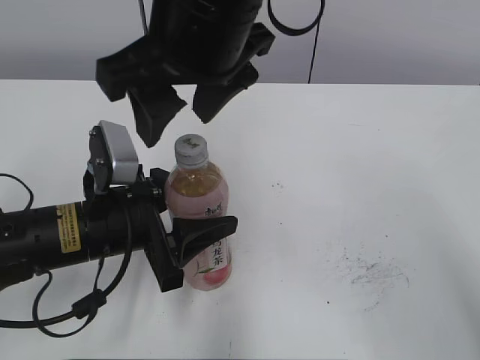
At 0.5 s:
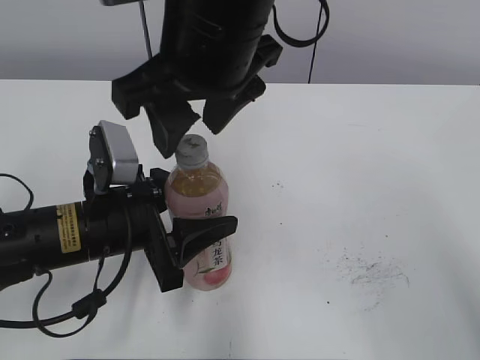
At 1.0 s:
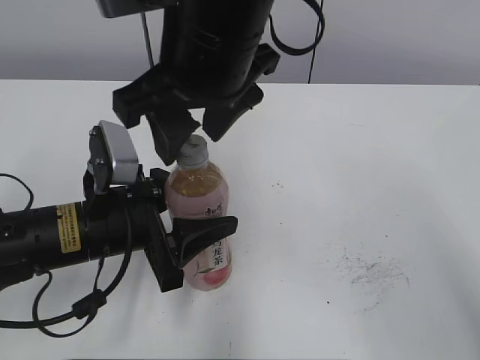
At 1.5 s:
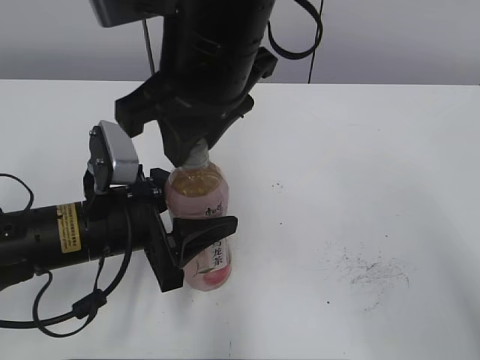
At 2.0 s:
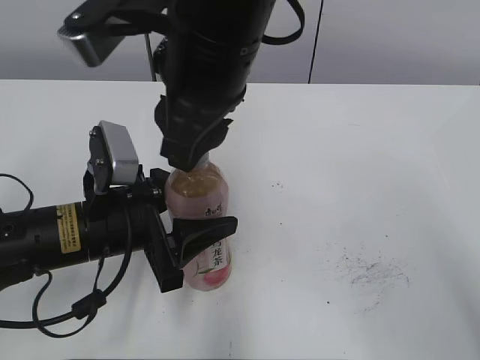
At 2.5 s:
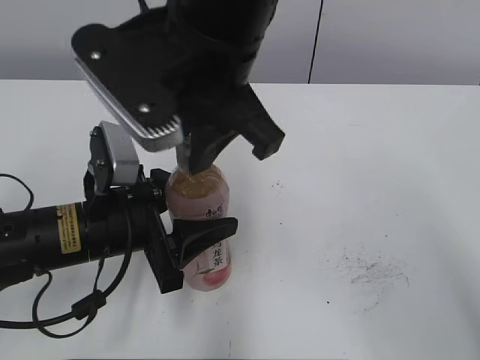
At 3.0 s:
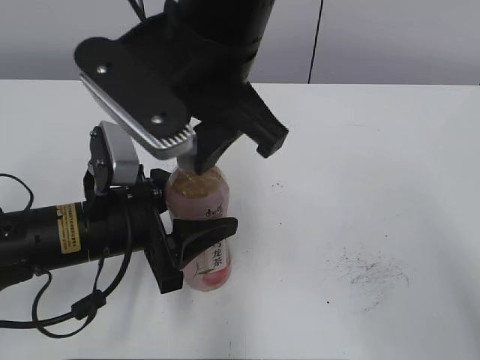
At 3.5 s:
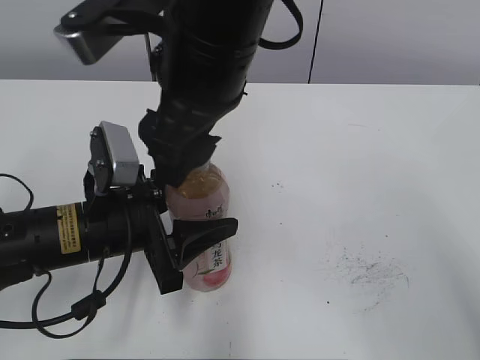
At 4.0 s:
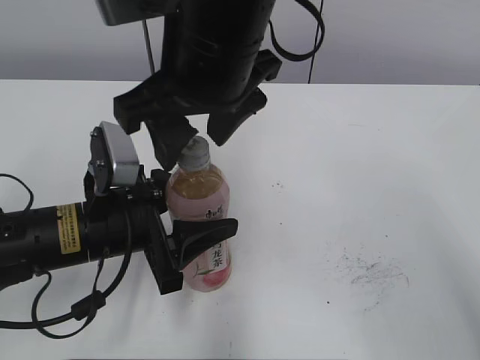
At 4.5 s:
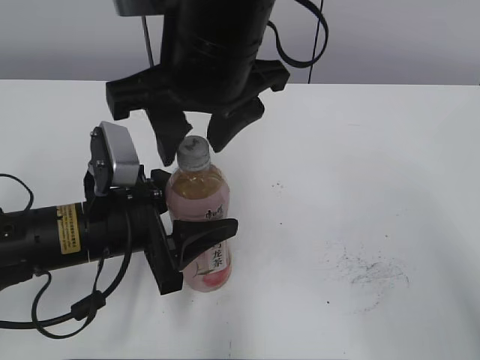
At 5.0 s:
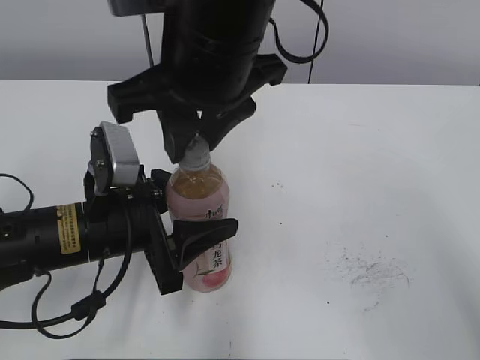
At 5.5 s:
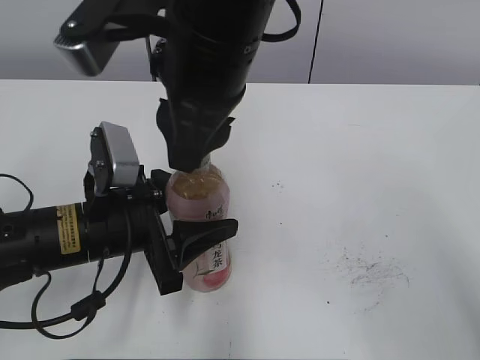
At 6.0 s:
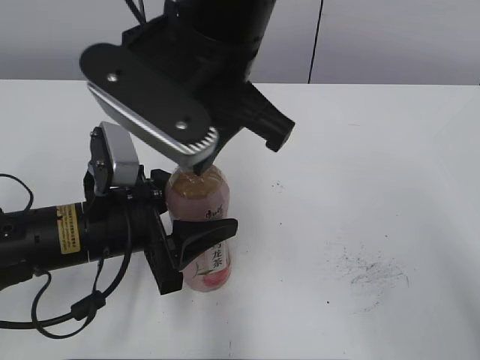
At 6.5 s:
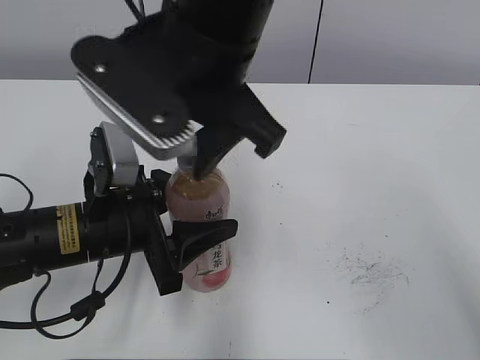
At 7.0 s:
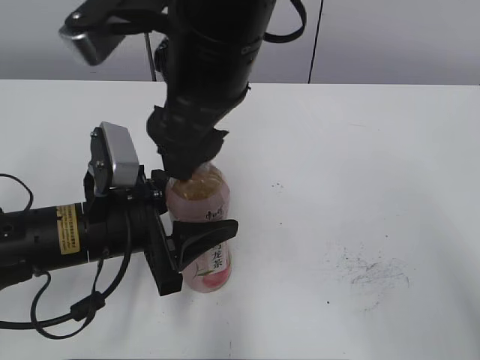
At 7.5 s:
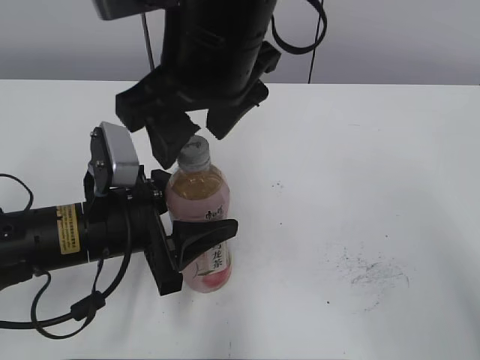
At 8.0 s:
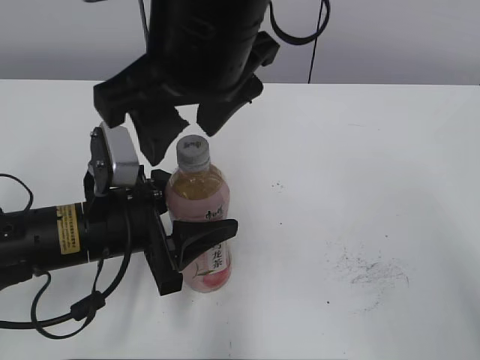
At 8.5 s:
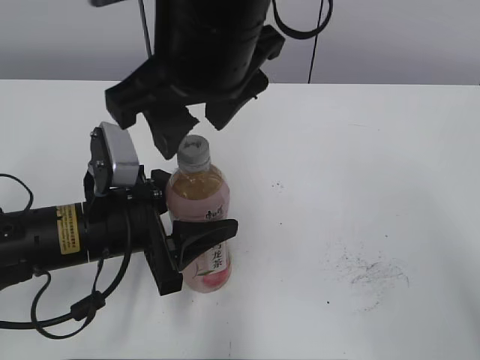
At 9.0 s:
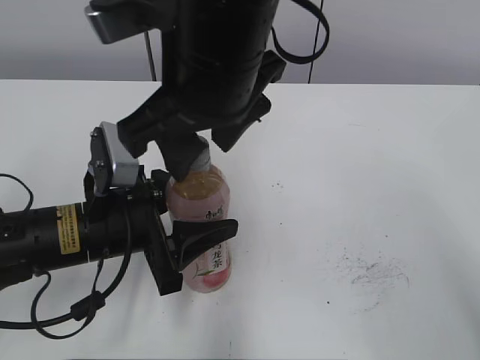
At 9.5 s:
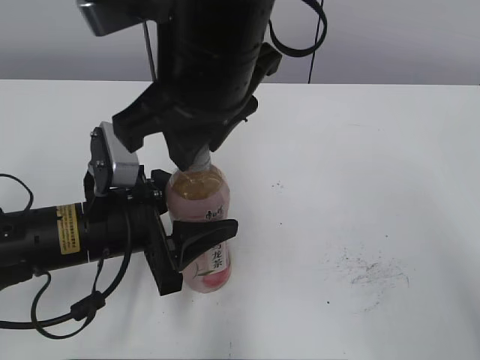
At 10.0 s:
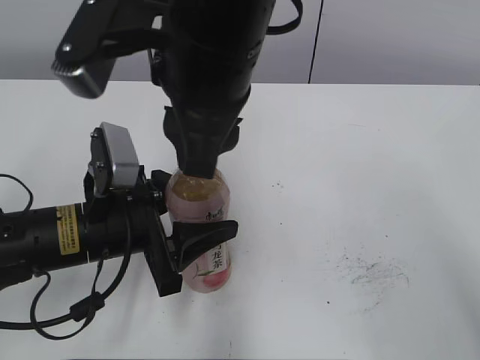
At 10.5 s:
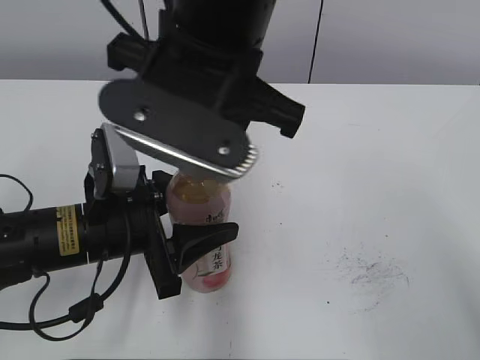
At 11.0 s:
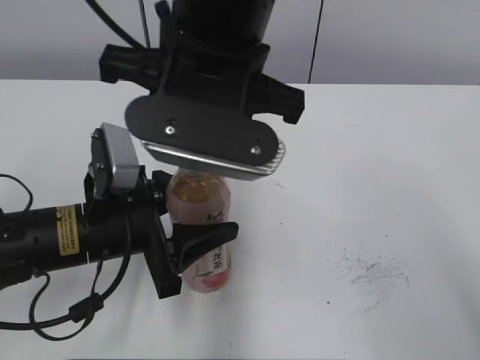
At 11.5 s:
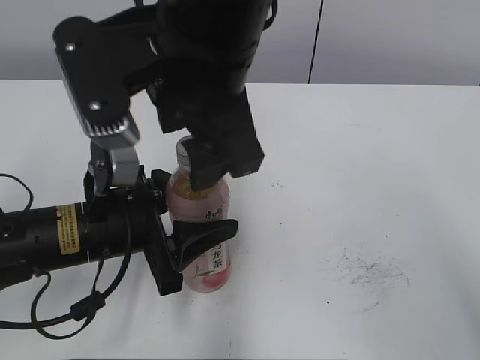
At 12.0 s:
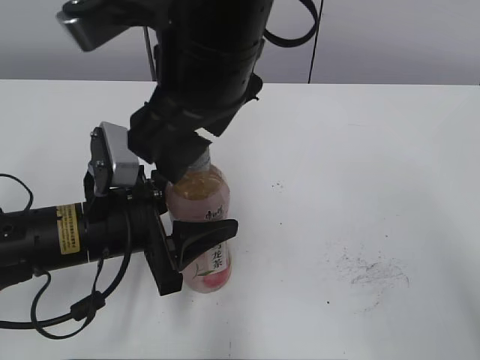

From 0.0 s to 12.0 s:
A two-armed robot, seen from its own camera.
From 0.0 s to 2.0 s: The right gripper closes.
From 2.0 s to 4.0 s: The right gripper opens up.
From 4.0 s to 6.0 s: The right gripper closes its fingers.
From 6.0 s to 8.0 s: The right gripper opens up.
From 8.0 s to 10.0 s: The right gripper closes its fingers.
From 10.0 s to 12.0 s: The right gripper opens.

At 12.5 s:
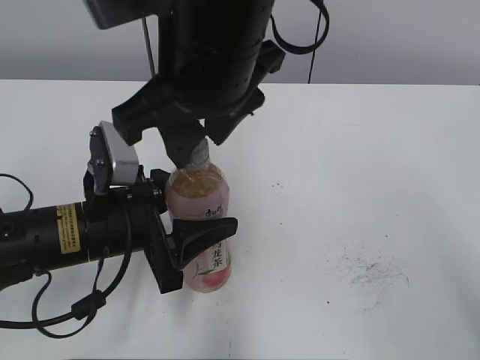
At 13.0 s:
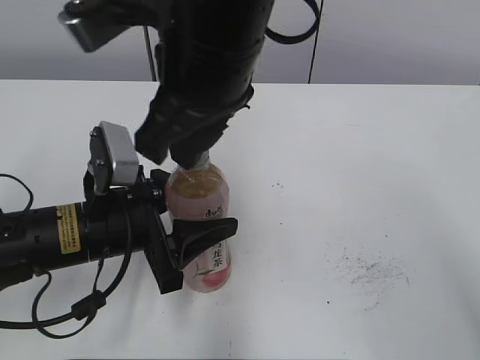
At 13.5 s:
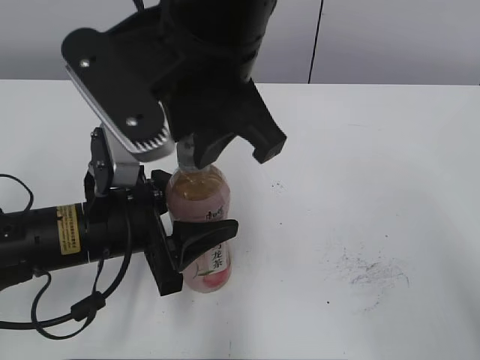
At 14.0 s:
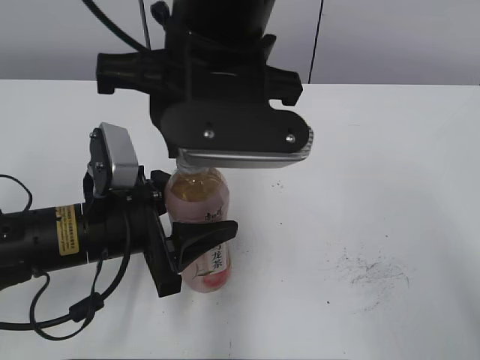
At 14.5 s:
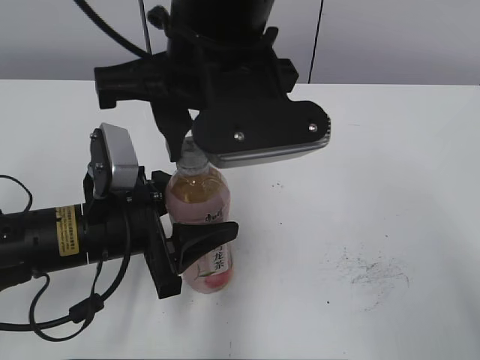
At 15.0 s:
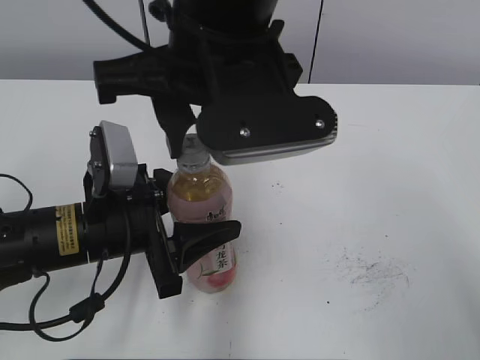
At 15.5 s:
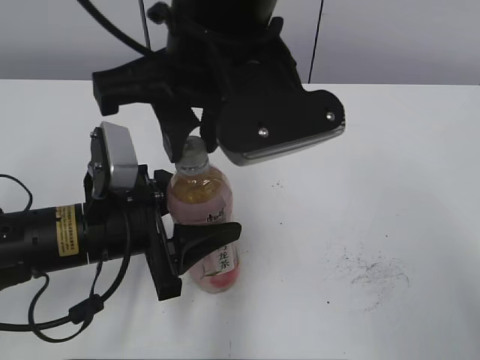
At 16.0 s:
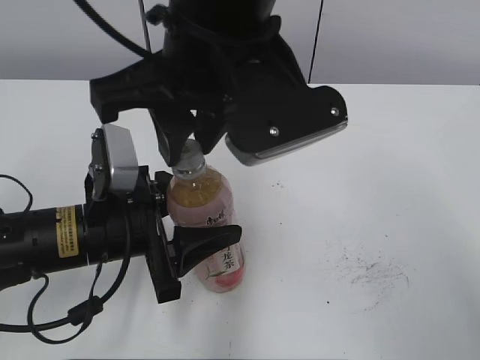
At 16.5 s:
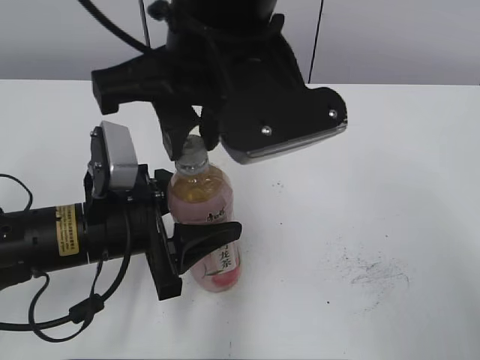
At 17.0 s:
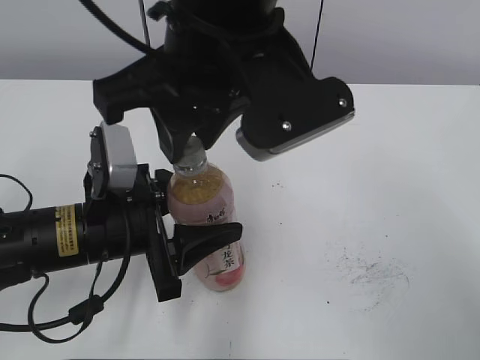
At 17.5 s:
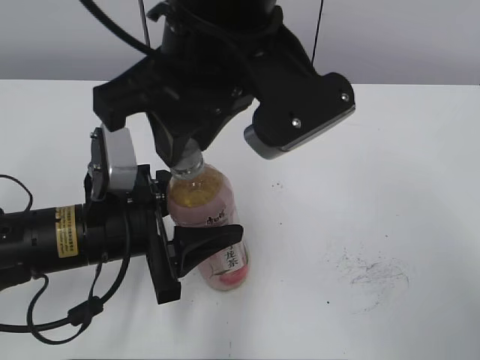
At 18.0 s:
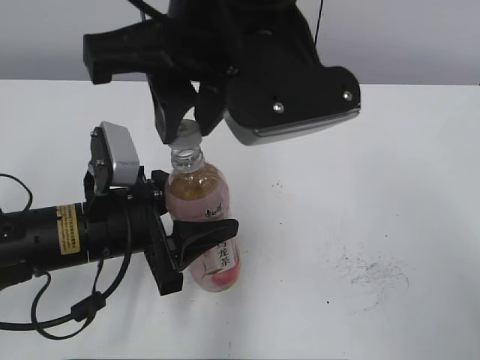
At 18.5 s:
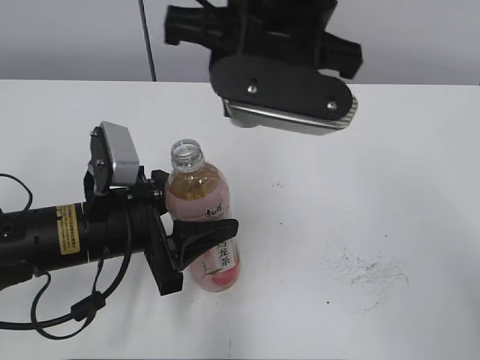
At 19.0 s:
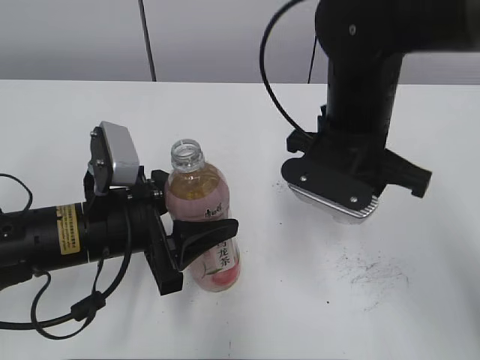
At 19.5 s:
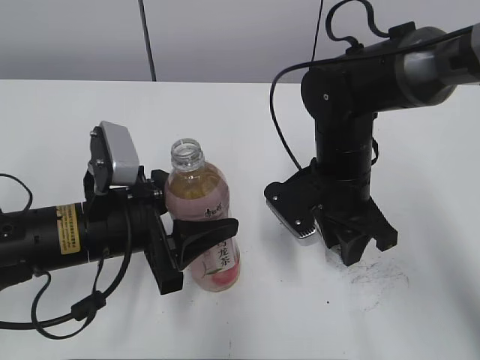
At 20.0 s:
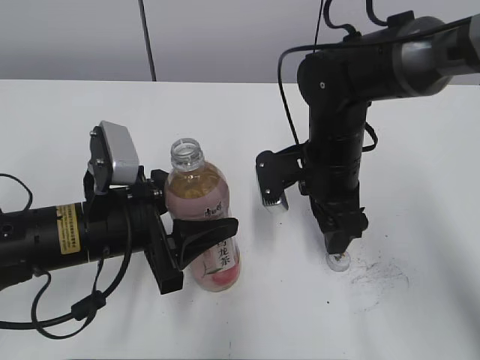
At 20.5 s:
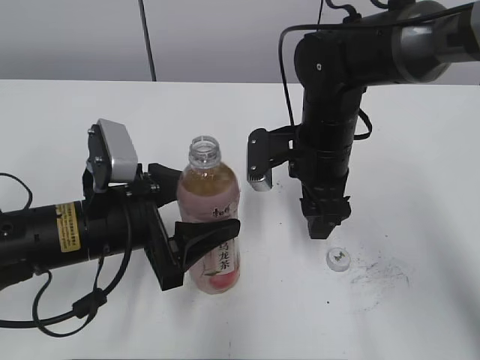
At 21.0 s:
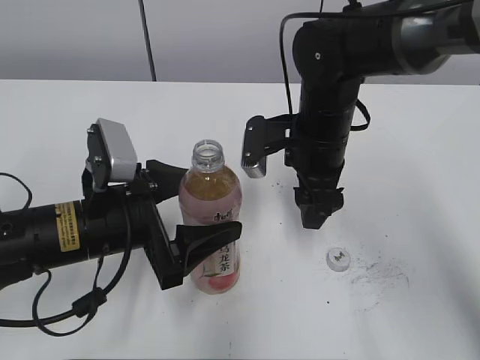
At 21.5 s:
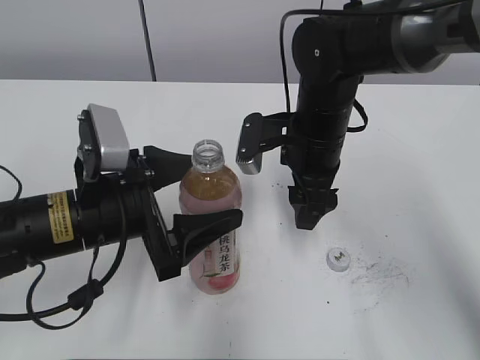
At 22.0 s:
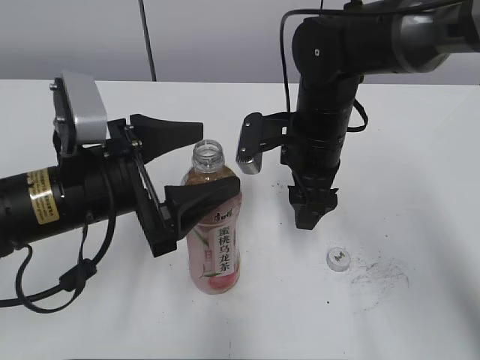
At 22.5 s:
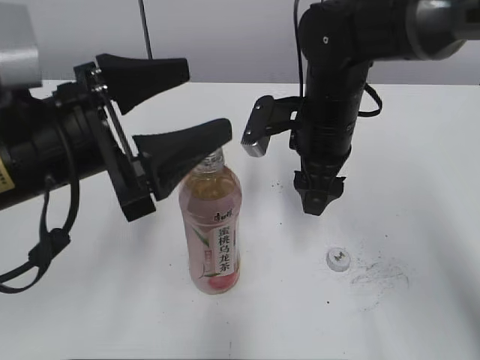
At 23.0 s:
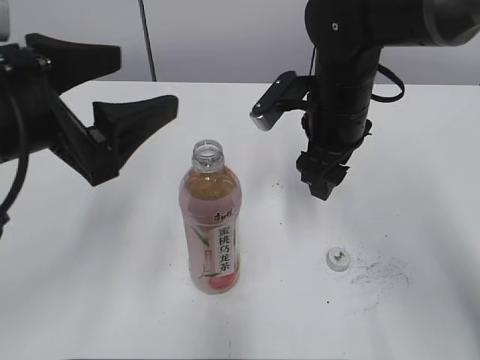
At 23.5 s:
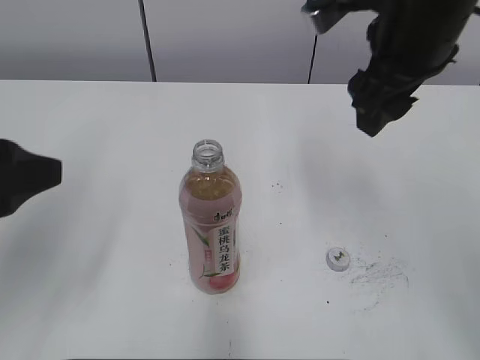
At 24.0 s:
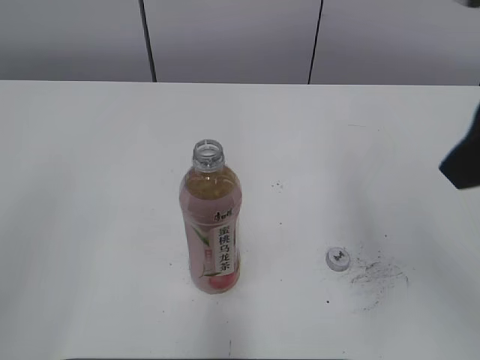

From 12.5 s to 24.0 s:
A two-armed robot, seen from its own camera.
Step, from 12.5 s to 17.5 s: Secure the Peach Oolong Tea with the left hand.
Step, from 18.0 s to 19.5 s: Place the bottle cap on the right.
From 12.5 s to 14.5 s: The right gripper closes.
From 14.5 s to 16.5 s: The grippers make only small movements.
From 18.5 s to 20.0 s: The right gripper moves downward and to the right, about 20 cm, and opens up.
From 20.0 s to 22.0 s: The left gripper opens.
From 22.0 s to 24.0 s: The right gripper shifts about 25 cm upward, backward and to the right. The left gripper goes roughly 25 cm backward, upward and to the left.

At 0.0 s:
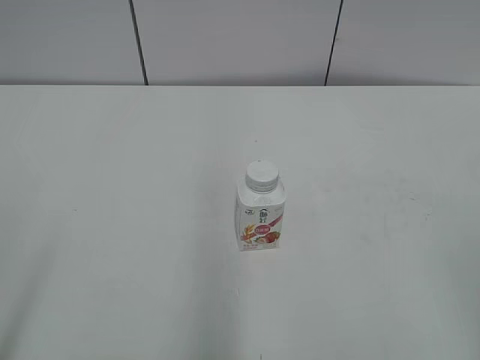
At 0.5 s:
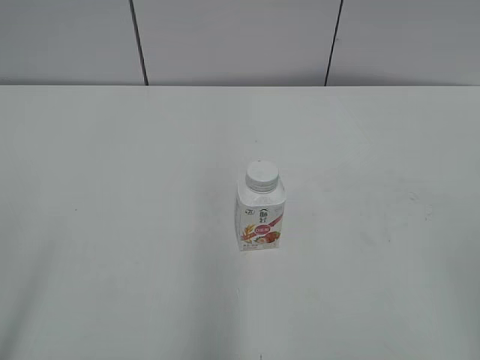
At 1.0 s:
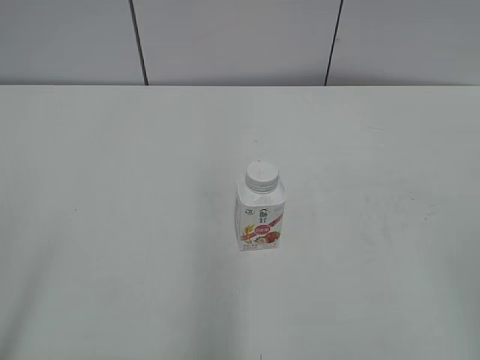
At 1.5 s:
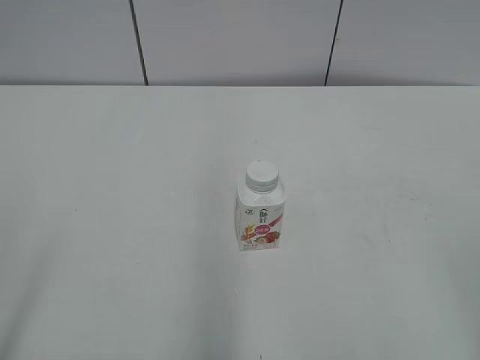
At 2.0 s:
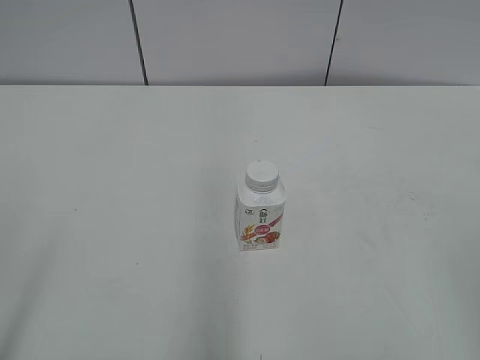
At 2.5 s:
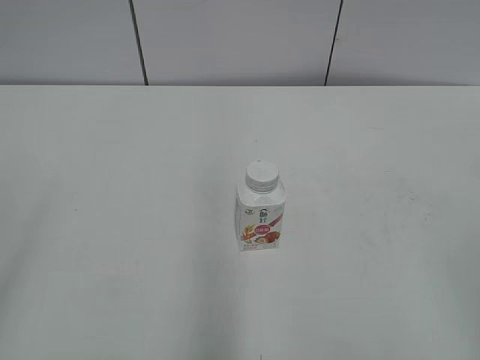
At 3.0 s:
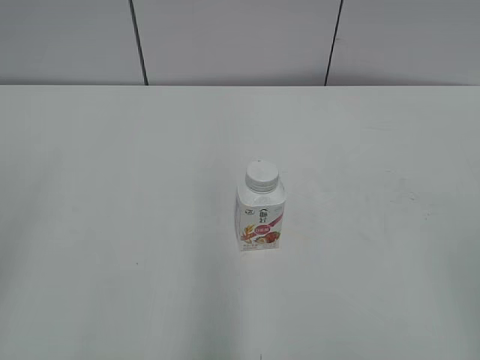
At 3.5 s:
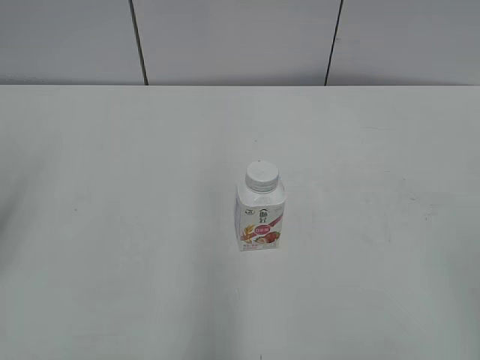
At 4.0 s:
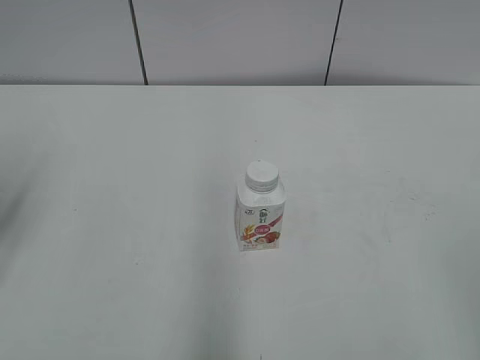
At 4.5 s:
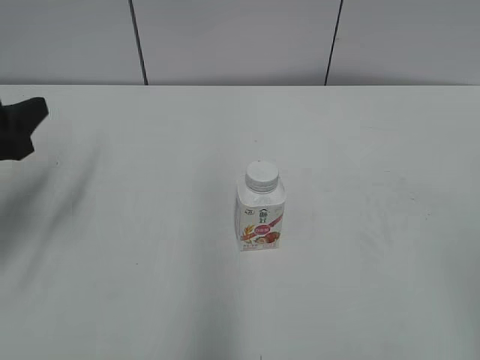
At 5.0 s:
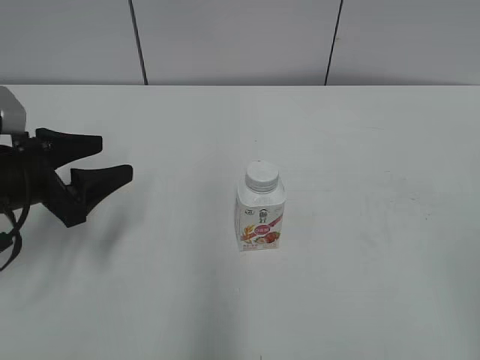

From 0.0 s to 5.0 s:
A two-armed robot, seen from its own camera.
From 2.5 s to 5.0 s: The left gripper moves forward and downward, roughly 30 cm, and closes, then reopens.
